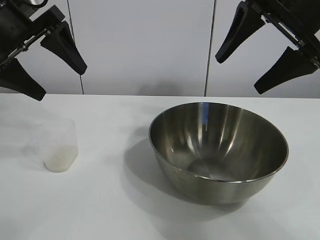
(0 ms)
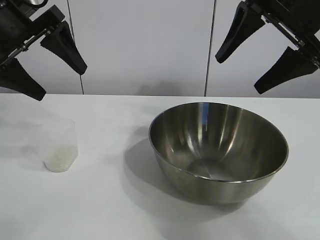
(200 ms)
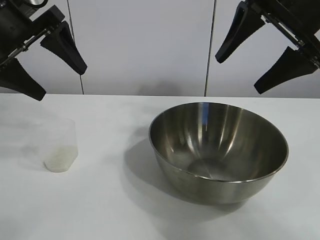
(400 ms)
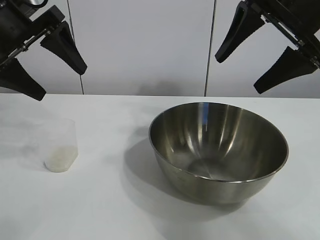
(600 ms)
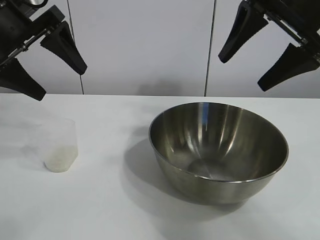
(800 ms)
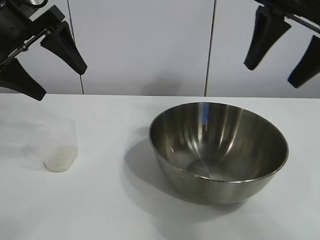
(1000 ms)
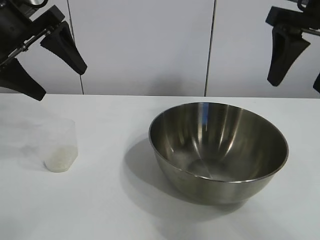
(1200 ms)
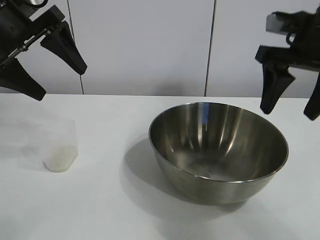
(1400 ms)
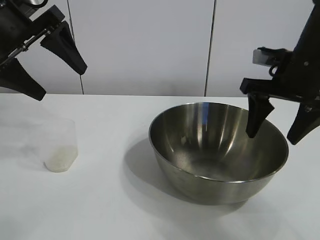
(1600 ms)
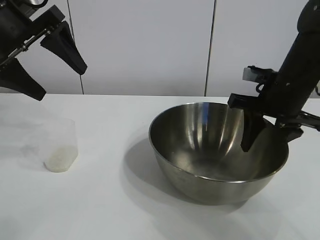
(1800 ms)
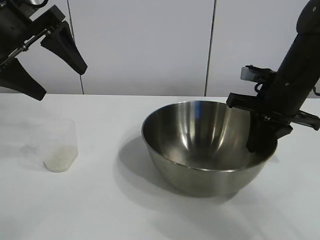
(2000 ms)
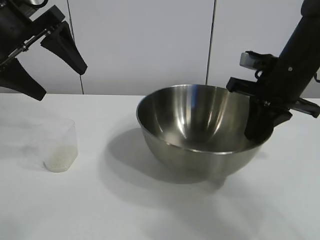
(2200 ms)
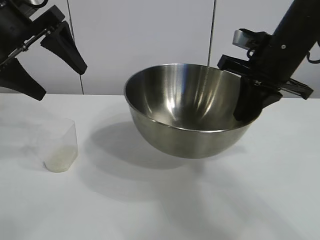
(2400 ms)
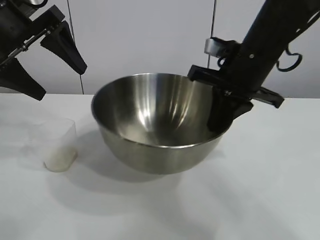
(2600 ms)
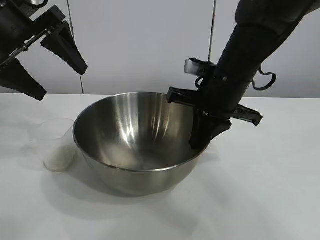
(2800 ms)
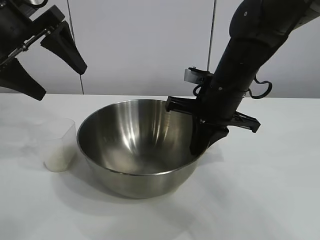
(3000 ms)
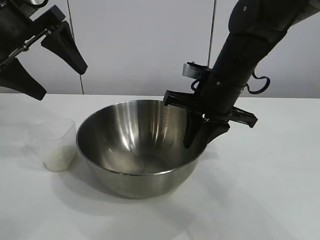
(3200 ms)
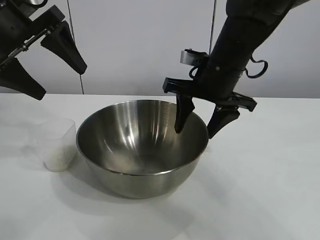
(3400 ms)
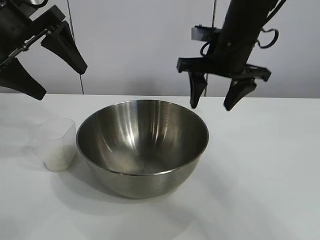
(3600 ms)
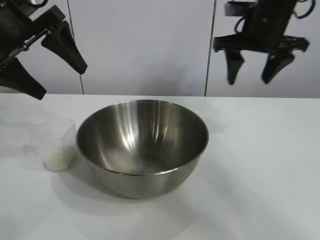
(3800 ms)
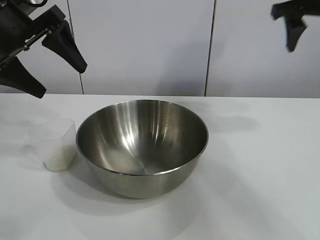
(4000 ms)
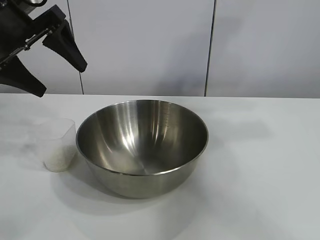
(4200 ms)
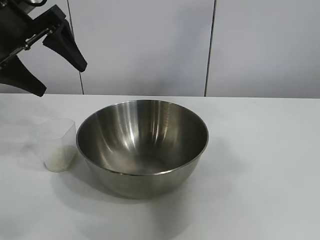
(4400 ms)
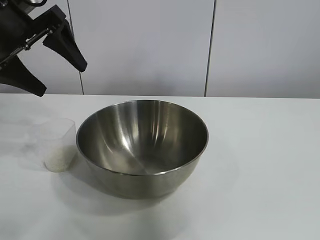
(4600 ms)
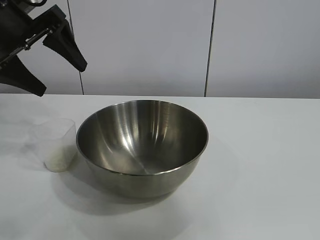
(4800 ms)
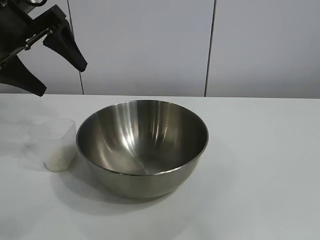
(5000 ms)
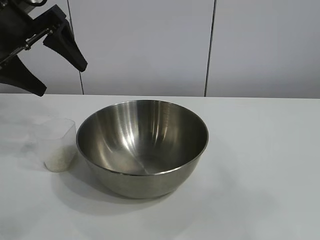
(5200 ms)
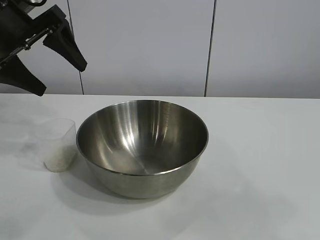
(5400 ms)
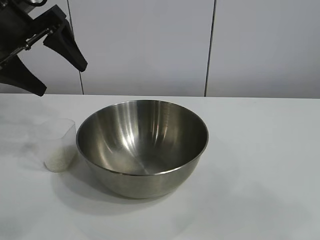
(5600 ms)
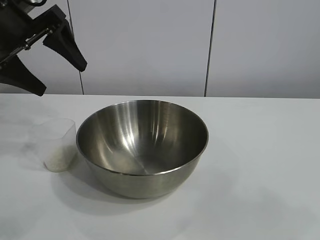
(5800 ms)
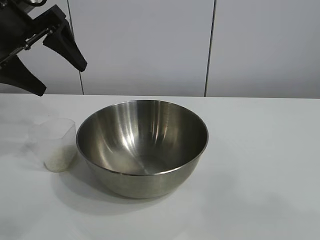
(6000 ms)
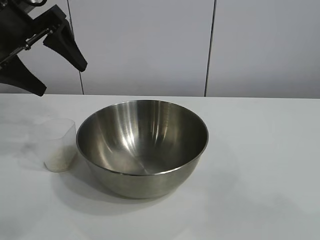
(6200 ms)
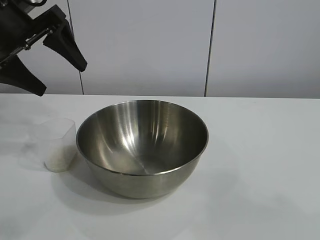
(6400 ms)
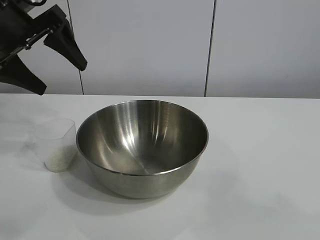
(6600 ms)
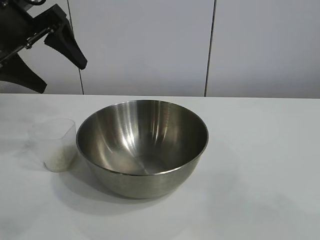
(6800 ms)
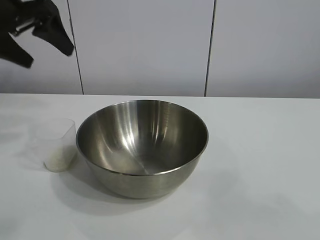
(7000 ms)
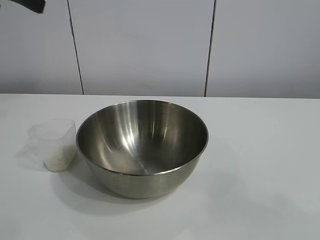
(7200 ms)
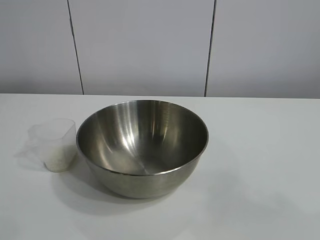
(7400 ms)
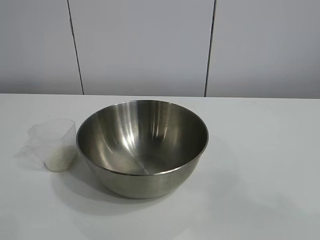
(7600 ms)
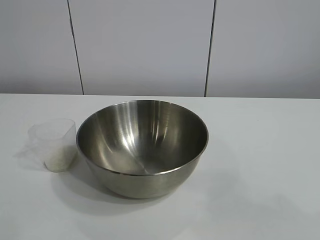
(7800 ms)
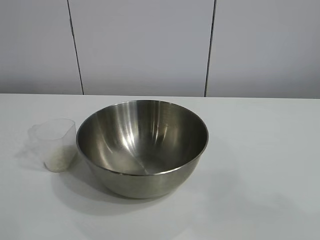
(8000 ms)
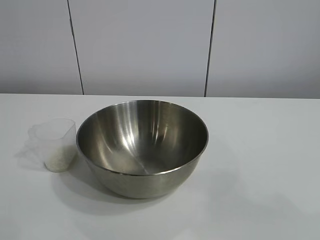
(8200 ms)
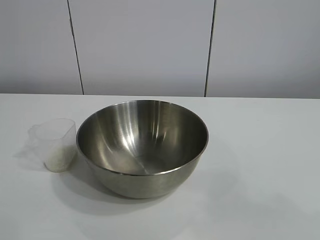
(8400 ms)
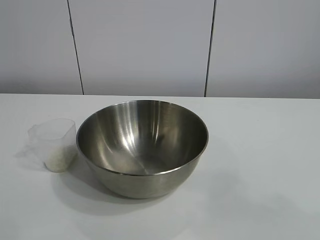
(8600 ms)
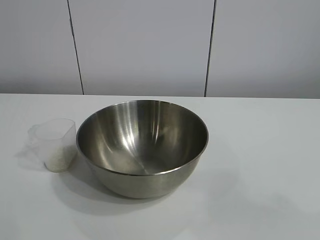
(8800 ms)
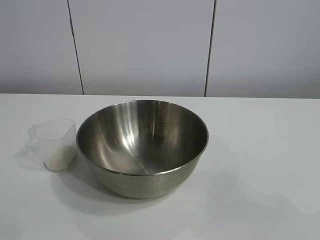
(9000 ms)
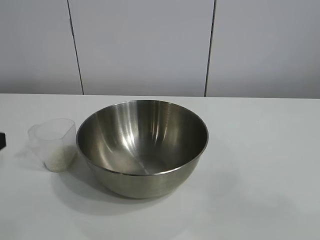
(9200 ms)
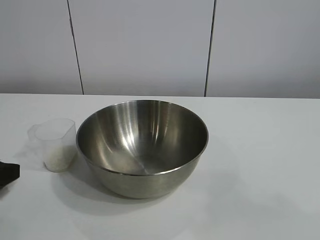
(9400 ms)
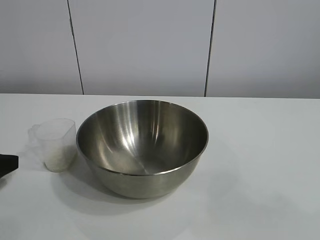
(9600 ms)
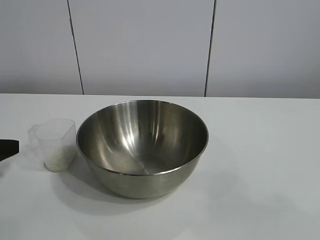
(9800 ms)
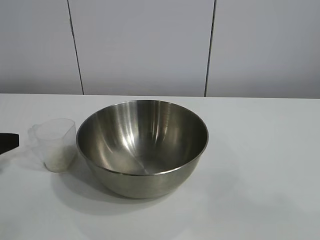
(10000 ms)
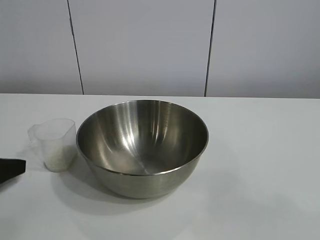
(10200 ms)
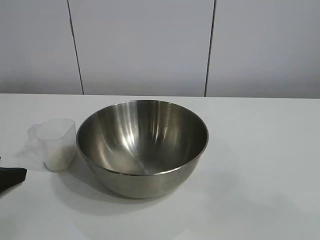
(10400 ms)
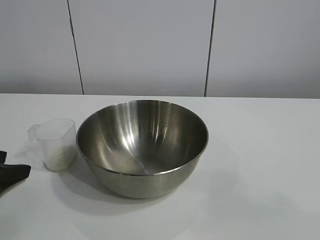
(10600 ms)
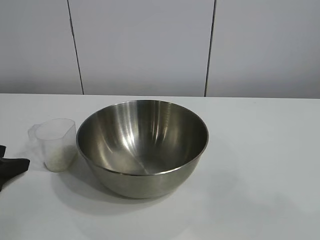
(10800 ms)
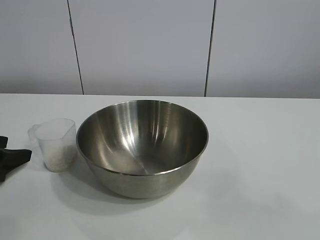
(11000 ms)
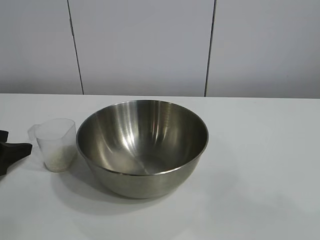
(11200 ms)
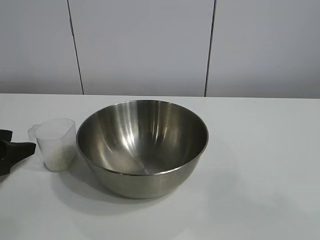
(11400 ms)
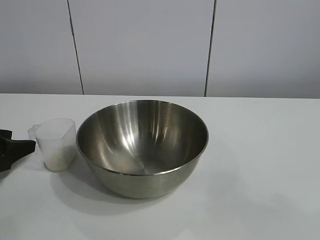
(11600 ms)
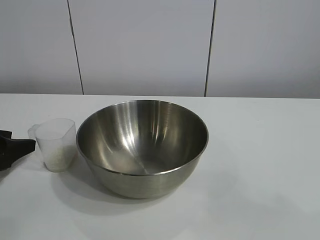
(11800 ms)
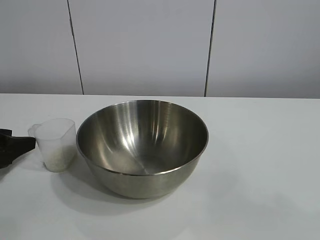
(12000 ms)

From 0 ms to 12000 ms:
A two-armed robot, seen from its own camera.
Task of the whole recording: the right gripper grasp the rice container and place it in the center of the table, the left gripper grasp the rice scoop and pour the rice into the rice container.
Step, from 800 ms to 3400 ms: Move the bowl in the center of view with right gripper.

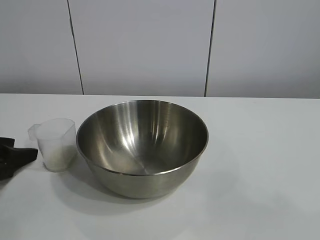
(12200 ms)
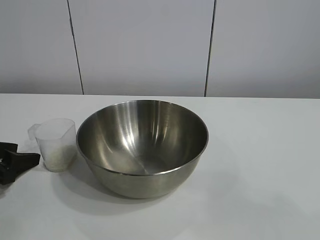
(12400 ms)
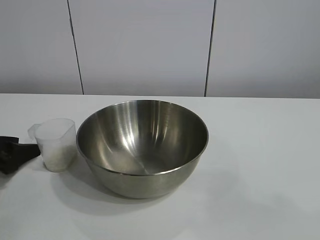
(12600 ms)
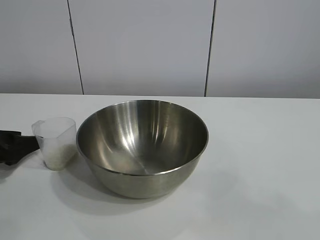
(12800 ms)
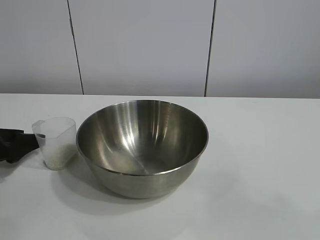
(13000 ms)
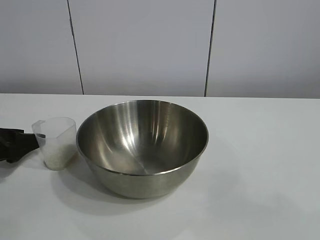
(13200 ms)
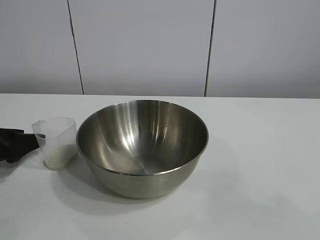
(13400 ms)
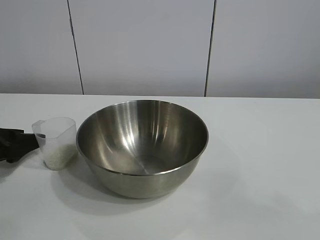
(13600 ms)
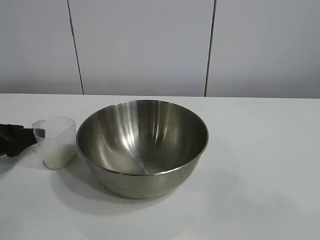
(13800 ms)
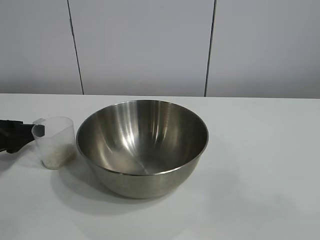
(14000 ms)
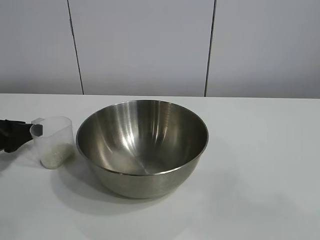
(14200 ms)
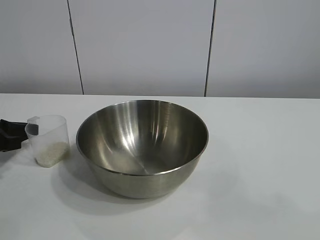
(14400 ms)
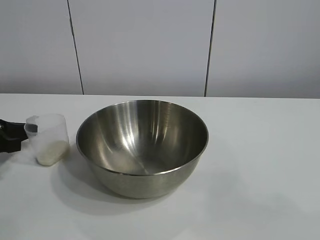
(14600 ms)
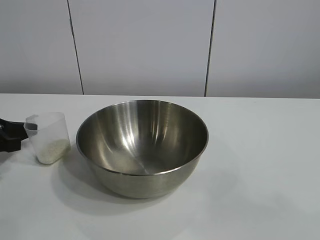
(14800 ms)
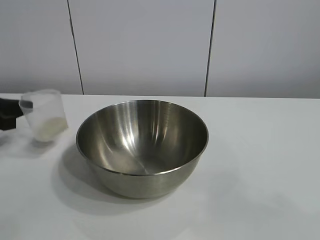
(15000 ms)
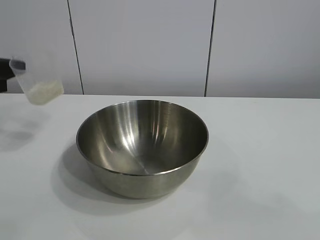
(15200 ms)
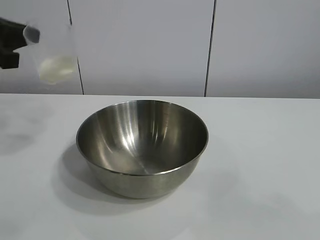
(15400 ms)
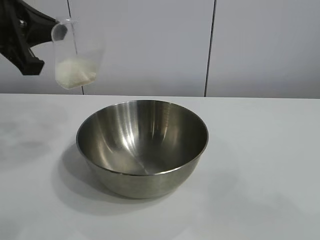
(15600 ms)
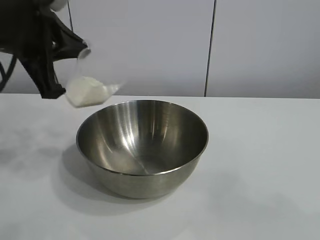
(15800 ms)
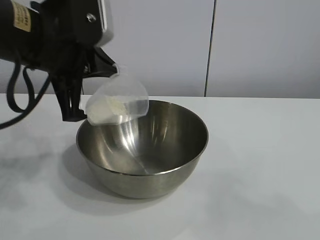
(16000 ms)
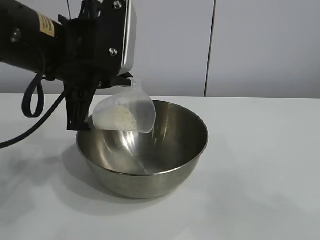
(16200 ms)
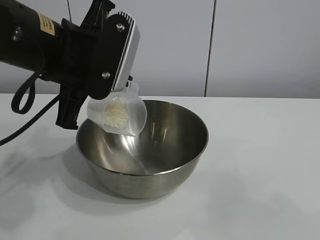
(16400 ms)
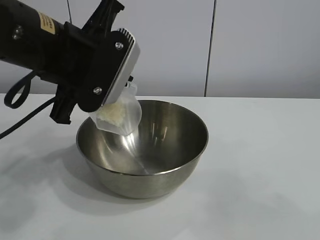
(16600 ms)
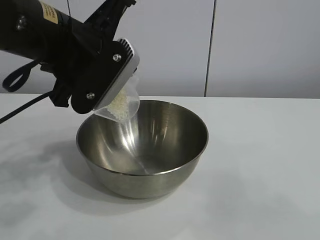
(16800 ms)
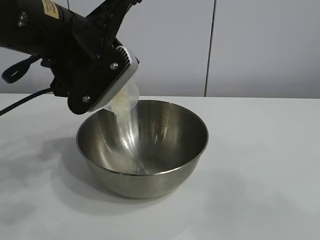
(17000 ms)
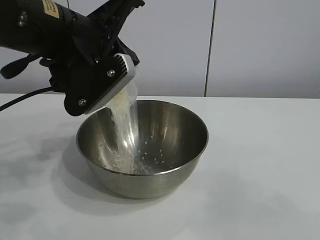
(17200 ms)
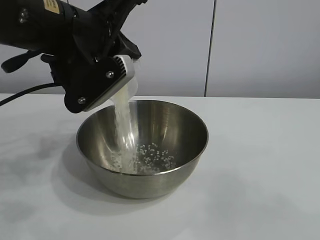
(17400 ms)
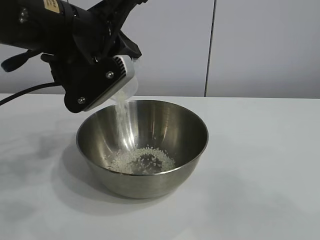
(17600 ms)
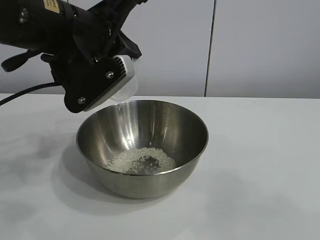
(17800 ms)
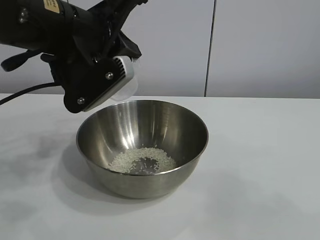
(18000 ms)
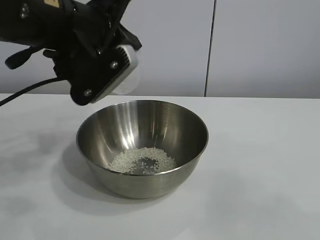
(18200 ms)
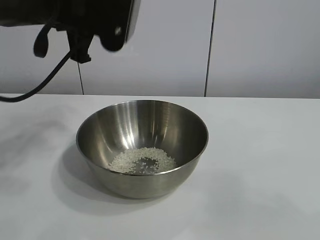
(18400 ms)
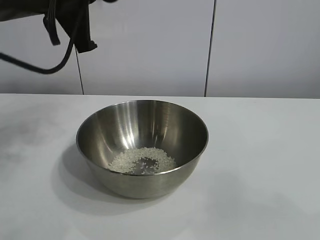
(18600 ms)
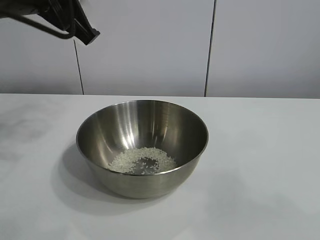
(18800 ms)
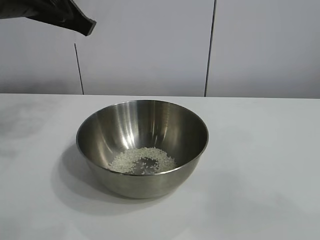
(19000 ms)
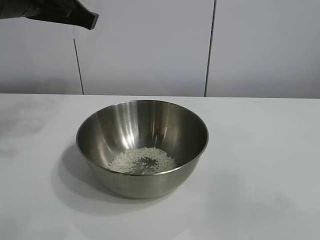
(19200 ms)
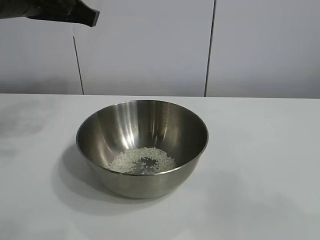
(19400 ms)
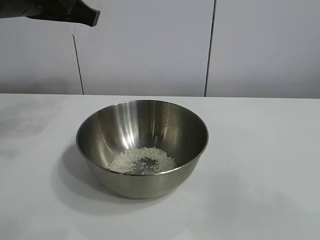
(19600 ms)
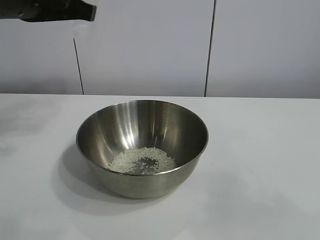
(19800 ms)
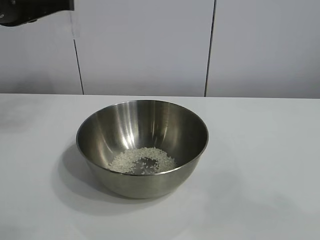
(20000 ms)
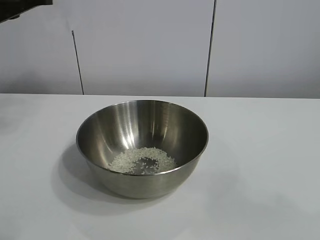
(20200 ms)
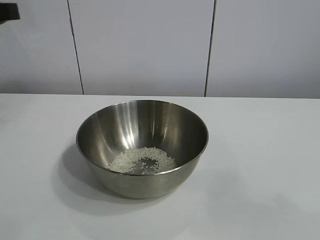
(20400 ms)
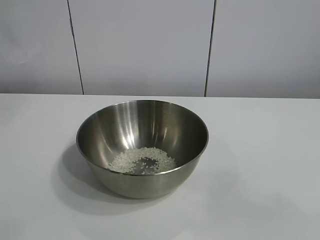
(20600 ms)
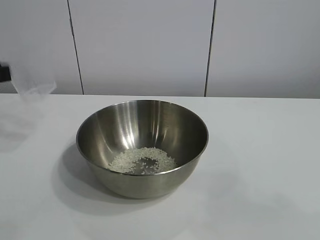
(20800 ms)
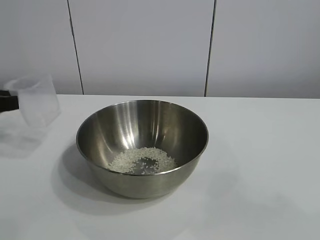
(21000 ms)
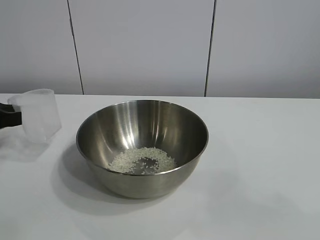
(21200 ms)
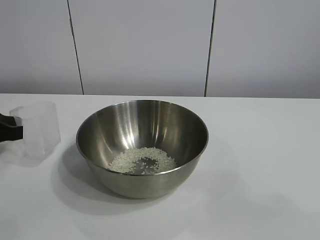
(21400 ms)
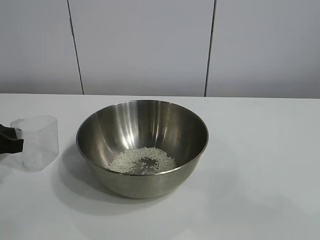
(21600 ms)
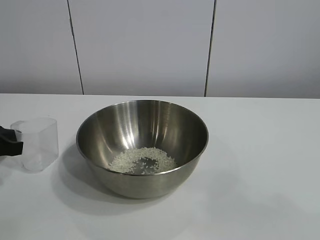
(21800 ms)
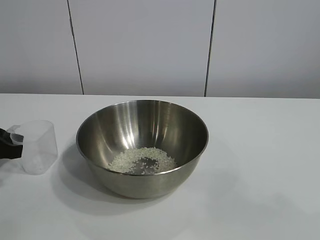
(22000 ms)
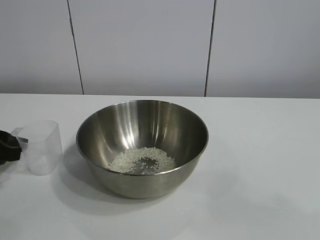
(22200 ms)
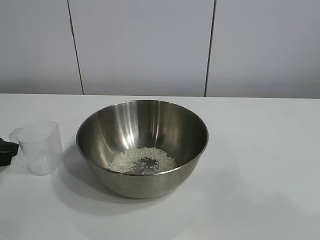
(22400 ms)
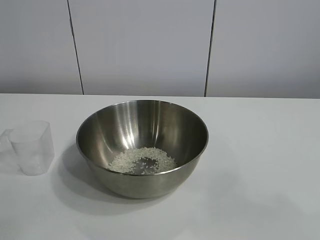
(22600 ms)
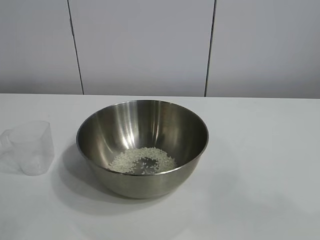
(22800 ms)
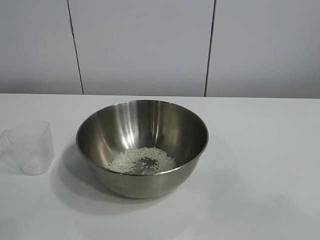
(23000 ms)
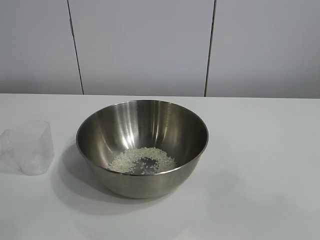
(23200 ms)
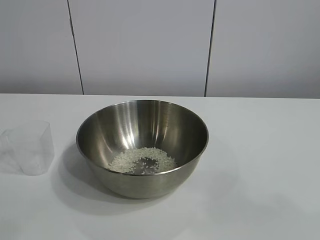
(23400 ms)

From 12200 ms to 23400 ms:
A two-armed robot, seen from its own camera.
Task of the whole recording: the right gripper grasp the rice container and place it in the center of the table, the left gripper grasp the rice scoop and pour the rice into the rice container.
Step, from 12200 ms to 14600 ms: Grasp the cup with rice in it with left gripper.
Step, from 14800 ms to 18200 ms: Pour the rice from the cup into the bowl with the left gripper.
Step, from 18400 ms to 22200 ms: Place the cup on the table with the left gripper.
